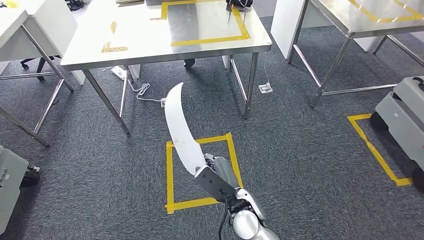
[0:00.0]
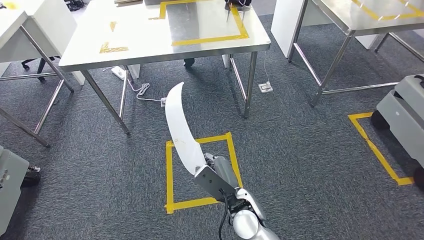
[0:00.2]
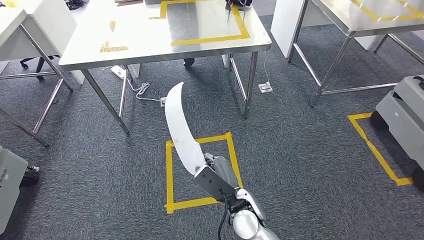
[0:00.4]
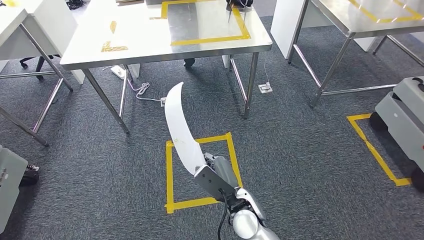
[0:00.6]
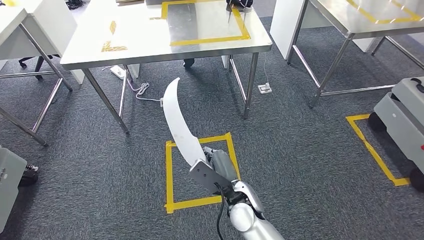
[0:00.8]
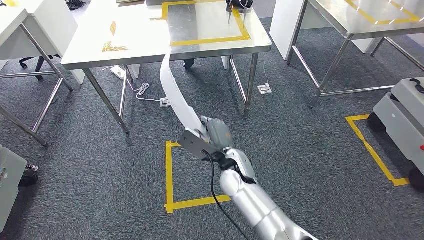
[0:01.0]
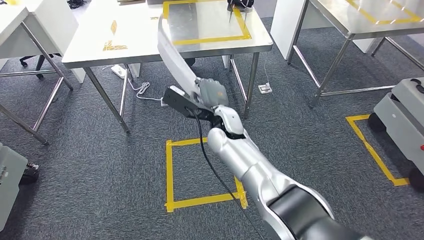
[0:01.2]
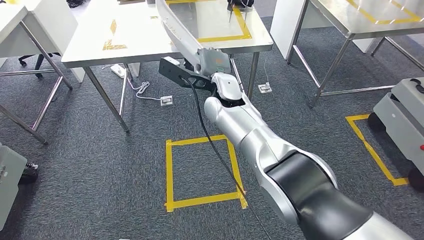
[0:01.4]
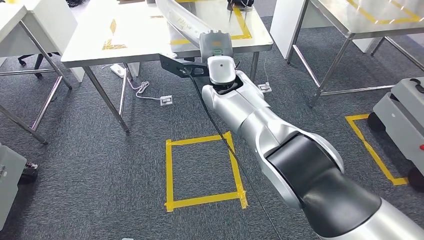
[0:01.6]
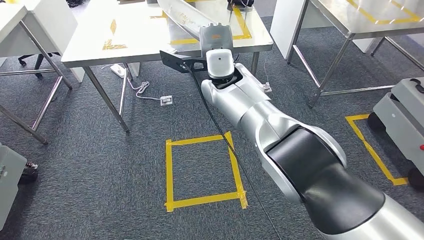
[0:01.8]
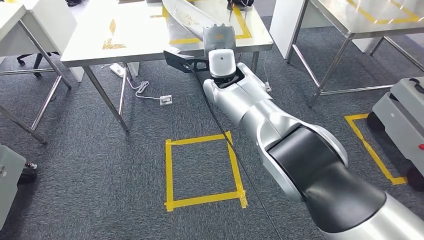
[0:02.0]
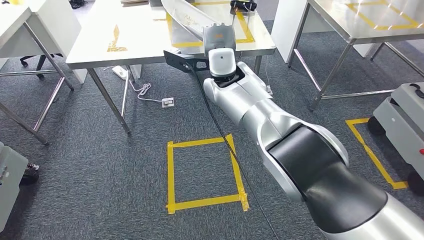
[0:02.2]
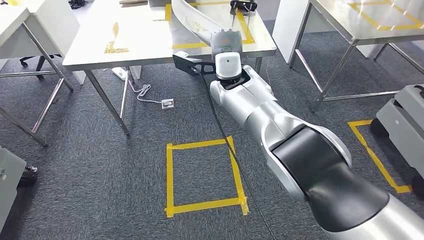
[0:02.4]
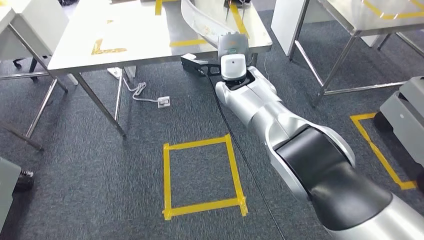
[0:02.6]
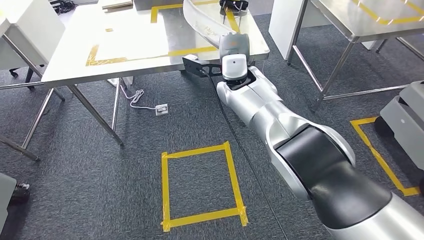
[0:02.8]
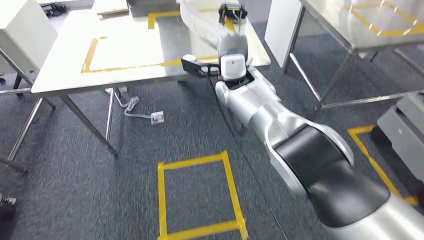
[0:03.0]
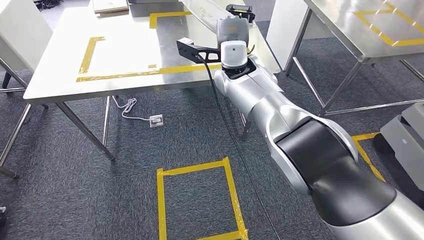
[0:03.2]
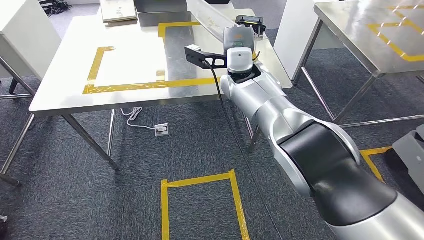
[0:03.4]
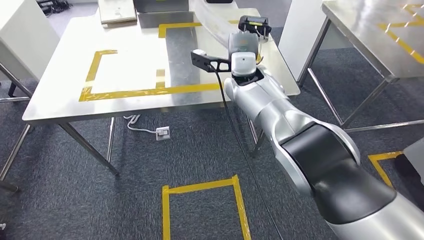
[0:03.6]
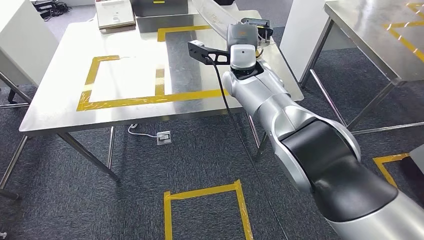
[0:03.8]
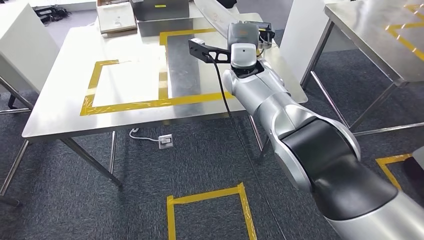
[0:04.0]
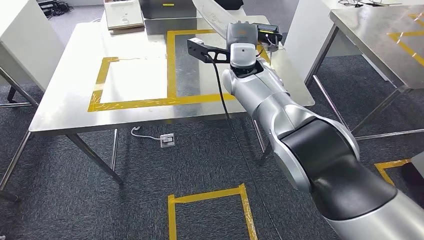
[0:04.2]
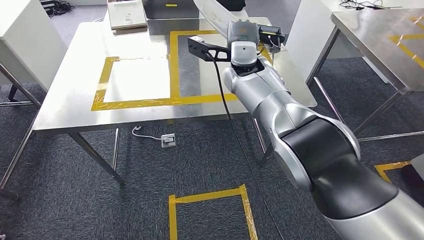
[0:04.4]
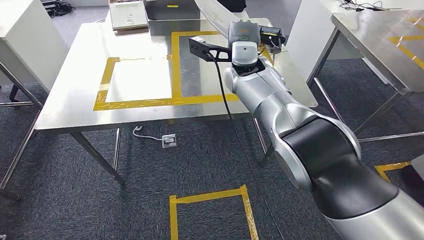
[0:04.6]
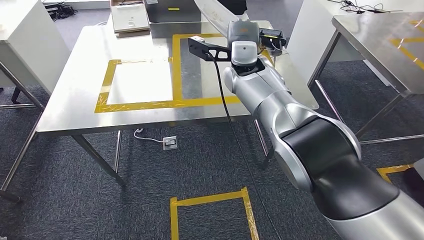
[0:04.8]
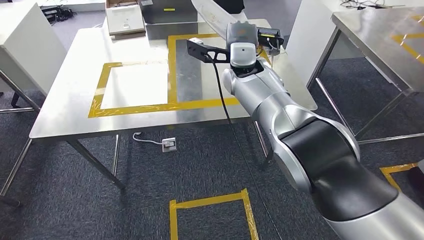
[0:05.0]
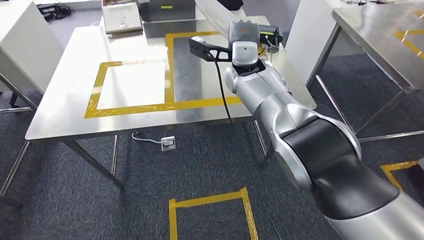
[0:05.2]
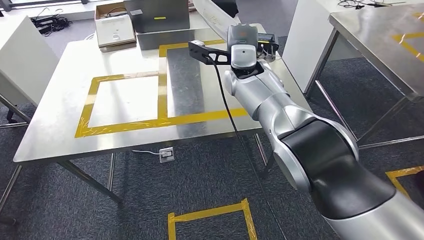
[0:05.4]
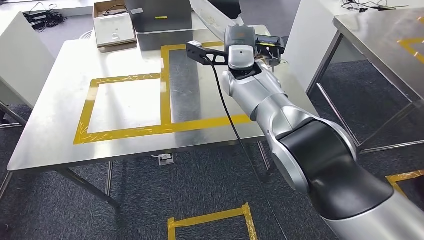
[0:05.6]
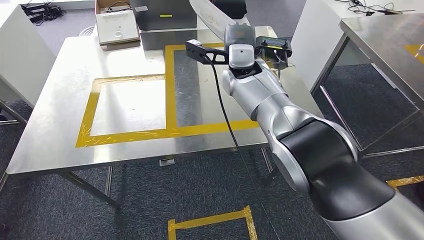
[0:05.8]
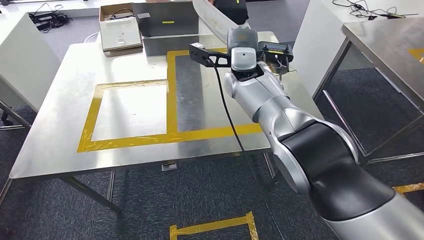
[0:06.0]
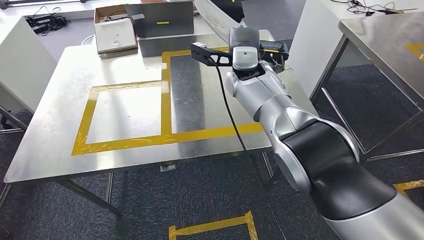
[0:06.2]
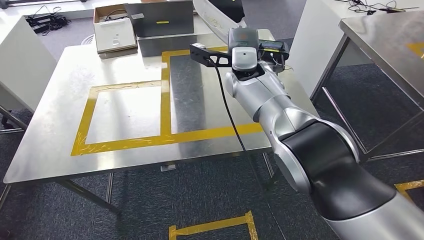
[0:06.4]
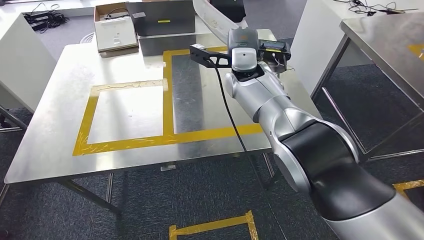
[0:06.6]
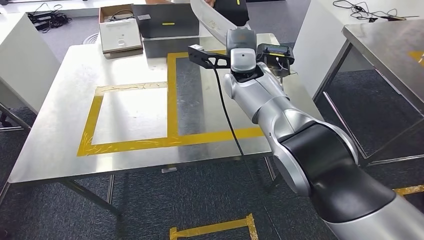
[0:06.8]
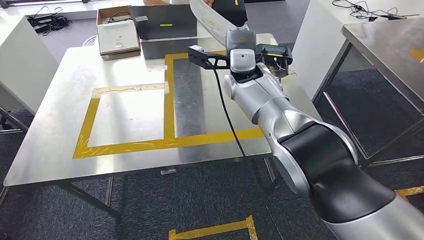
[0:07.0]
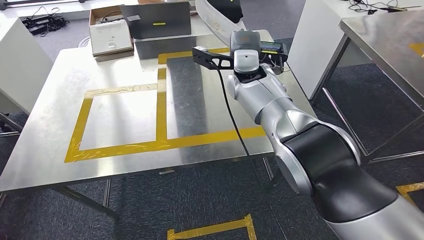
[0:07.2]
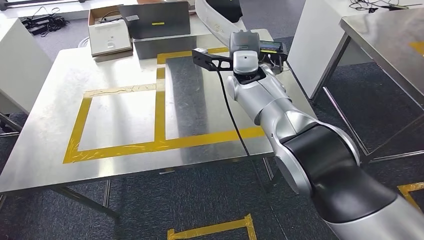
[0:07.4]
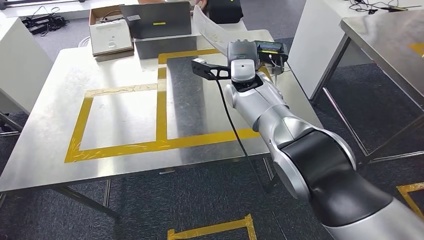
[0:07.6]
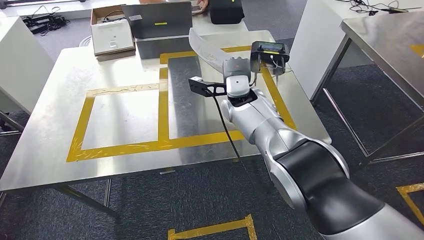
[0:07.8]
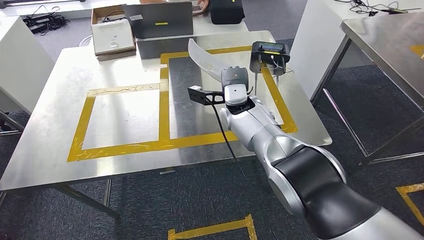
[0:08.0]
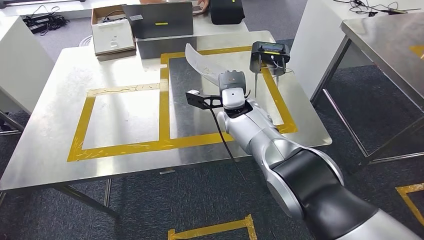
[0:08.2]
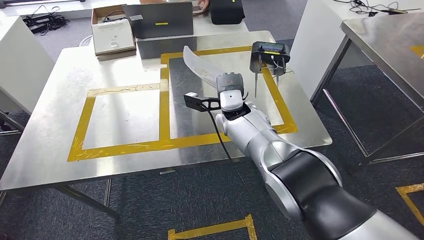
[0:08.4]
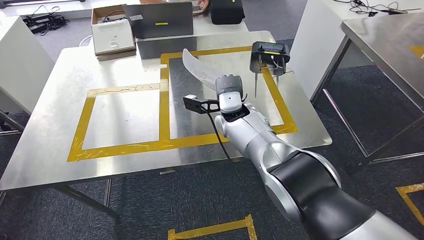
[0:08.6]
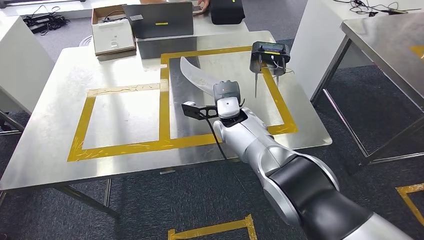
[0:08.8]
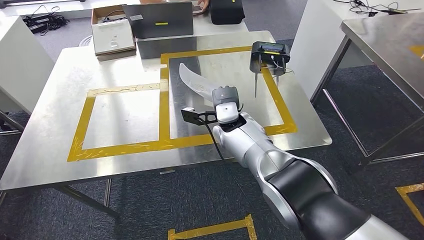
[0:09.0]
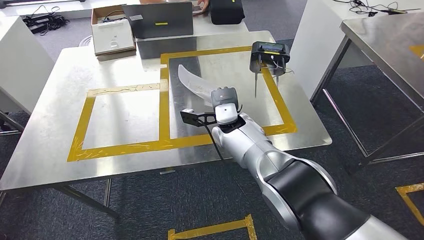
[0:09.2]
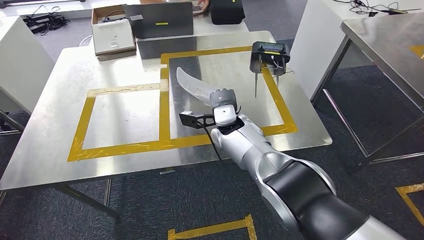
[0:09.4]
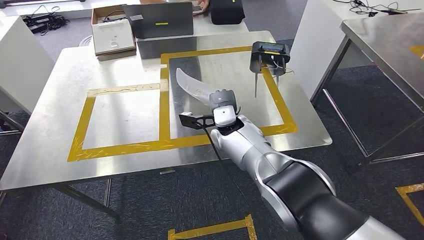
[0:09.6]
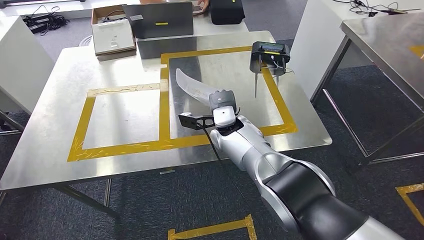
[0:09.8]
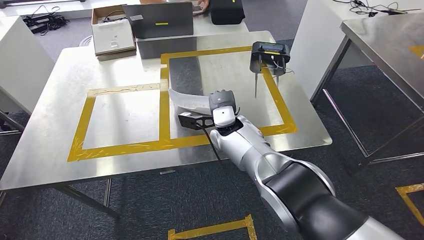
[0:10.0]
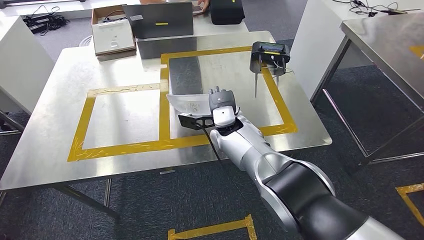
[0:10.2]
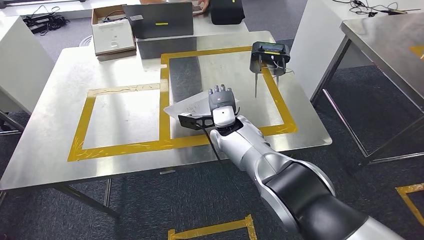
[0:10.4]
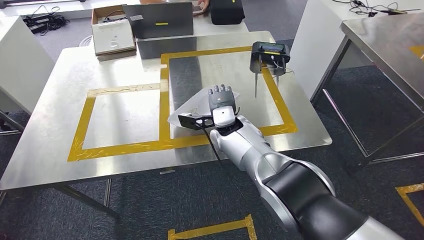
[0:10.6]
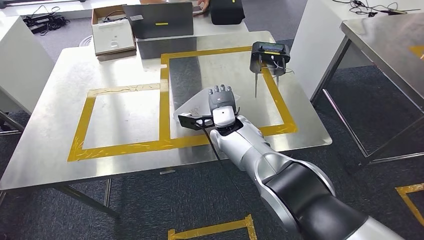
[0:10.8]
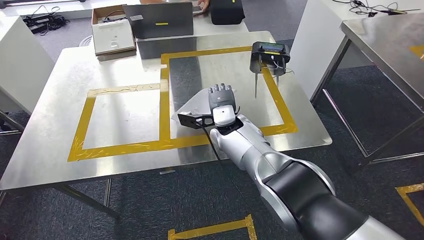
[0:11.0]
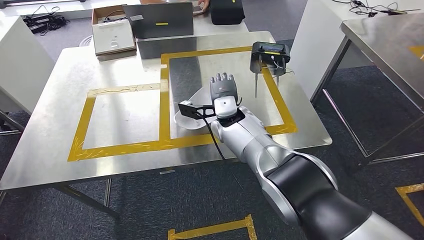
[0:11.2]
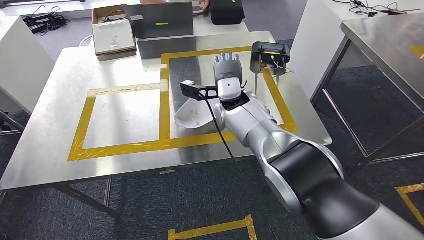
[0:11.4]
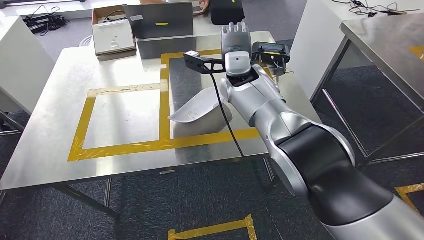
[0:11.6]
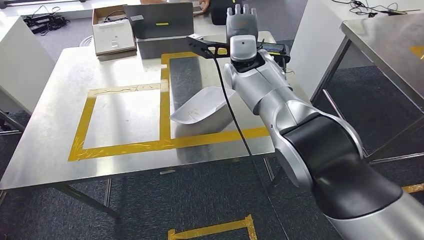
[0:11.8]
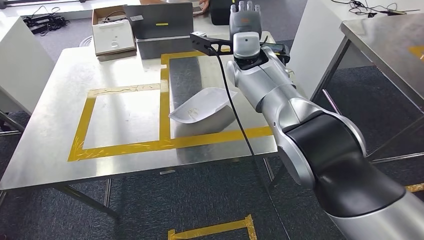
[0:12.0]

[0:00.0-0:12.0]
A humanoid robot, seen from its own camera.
Step, 0:00.0 to 0:07.8: Bring the small component to the front of the workbench.
Step, 0:08.2 to 0:12.0: Insert the small component into the corresponding slot on the workbench.
0:09.0 to 0:10.4: The two hands keep their place.
0:10.4 to 0:12.0: The right hand heads upward and forward, covering roughly 20 cm.

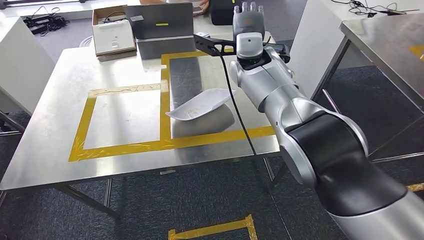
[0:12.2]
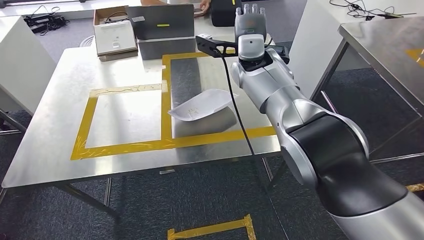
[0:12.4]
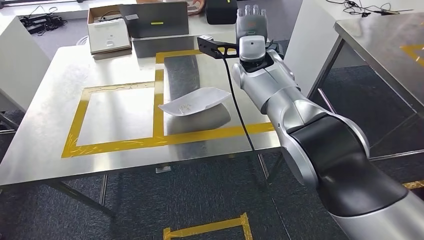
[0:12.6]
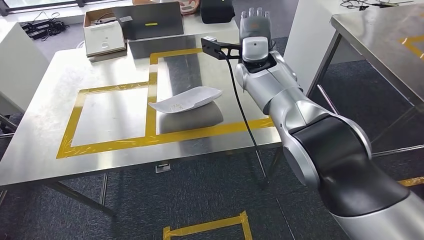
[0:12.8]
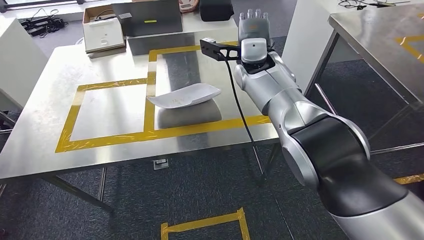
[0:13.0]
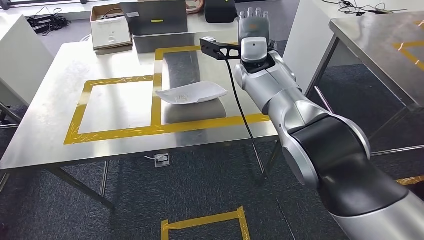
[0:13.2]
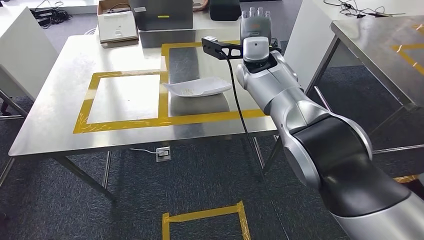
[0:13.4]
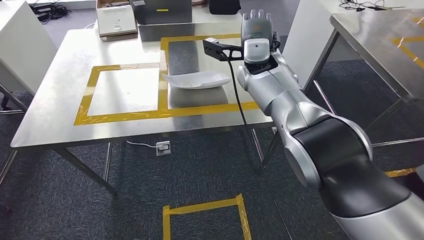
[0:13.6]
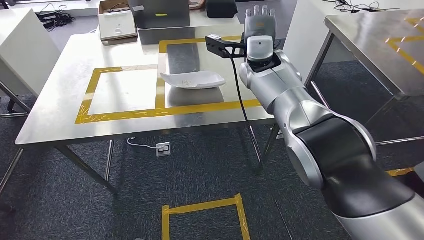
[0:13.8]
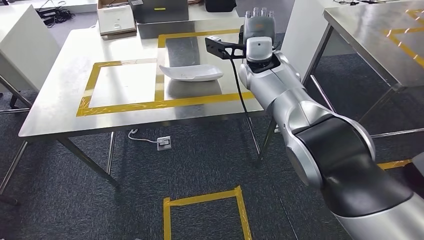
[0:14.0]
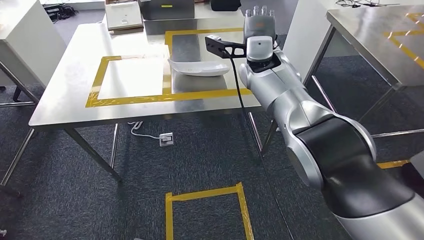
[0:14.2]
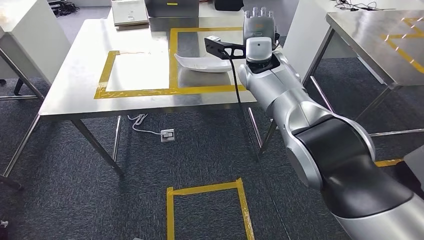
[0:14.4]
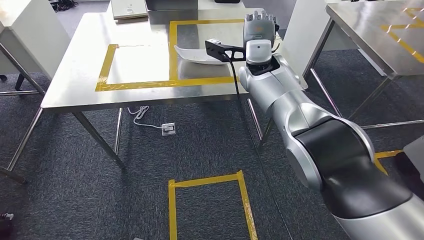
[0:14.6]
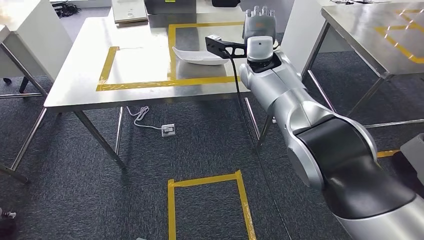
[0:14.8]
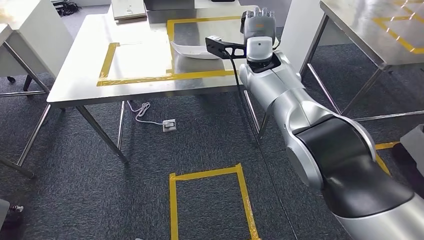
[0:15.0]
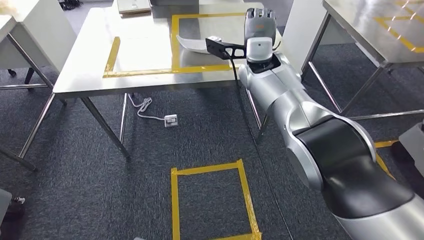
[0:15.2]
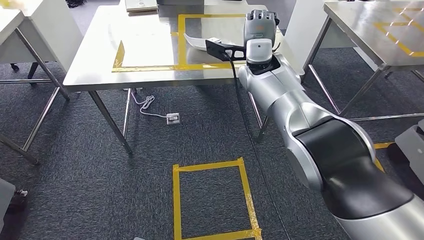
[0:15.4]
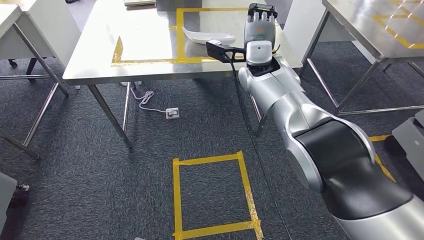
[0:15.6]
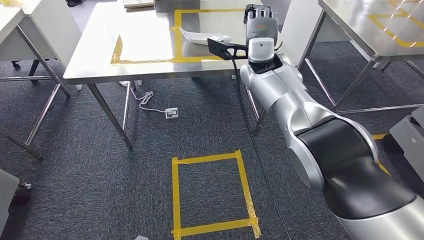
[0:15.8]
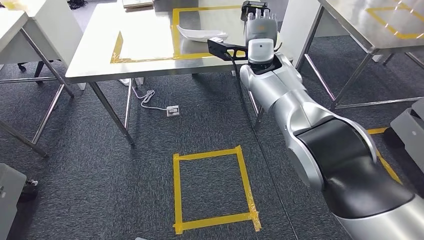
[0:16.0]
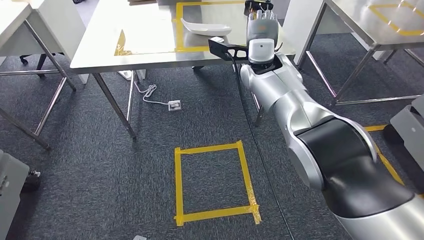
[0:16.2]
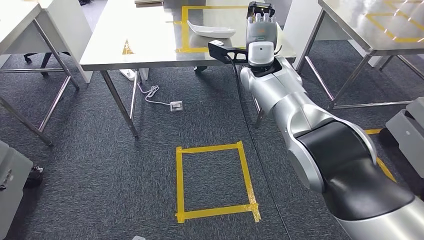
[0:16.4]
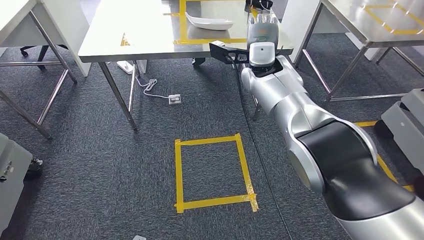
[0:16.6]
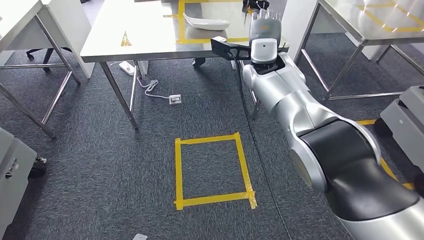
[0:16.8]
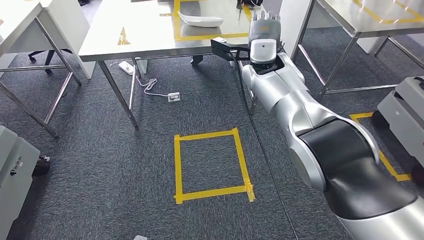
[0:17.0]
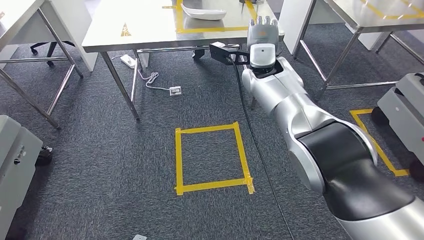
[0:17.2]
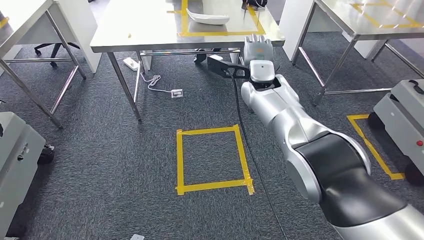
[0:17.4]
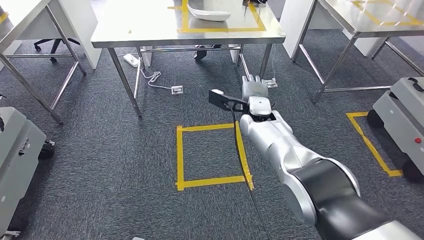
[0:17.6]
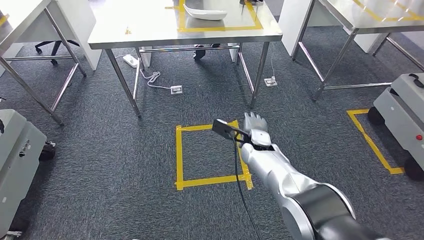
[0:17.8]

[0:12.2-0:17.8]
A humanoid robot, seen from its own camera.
Step, 0:12.4 to 0:17.8: Move to the initial position of the workbench.
